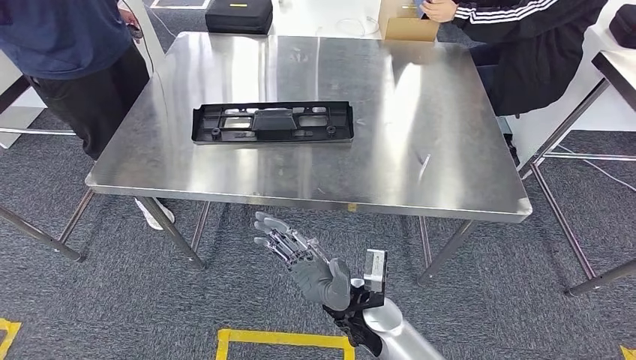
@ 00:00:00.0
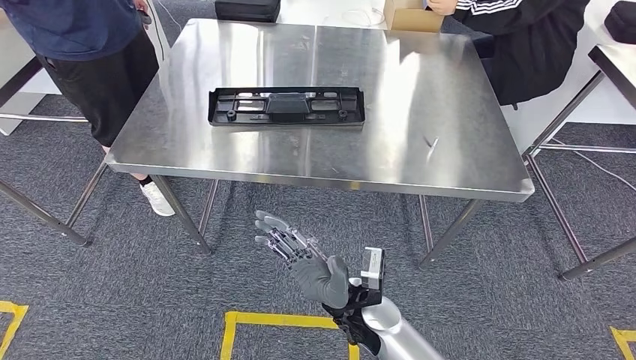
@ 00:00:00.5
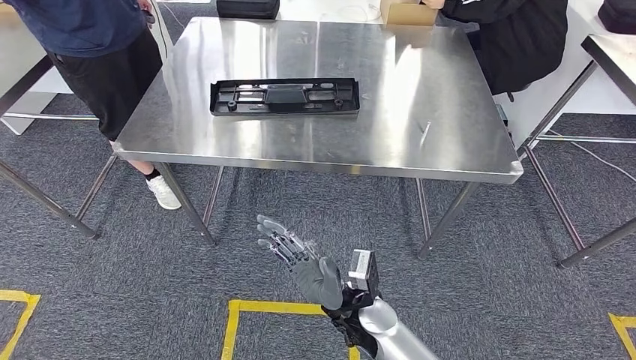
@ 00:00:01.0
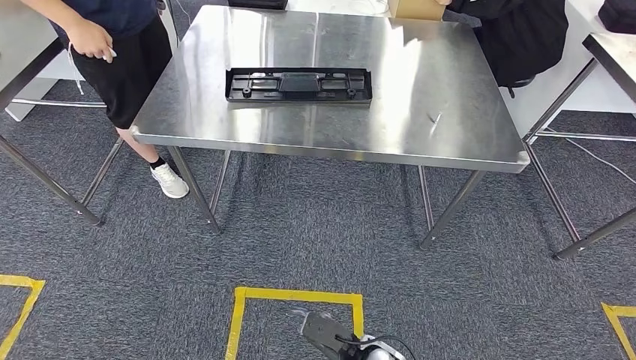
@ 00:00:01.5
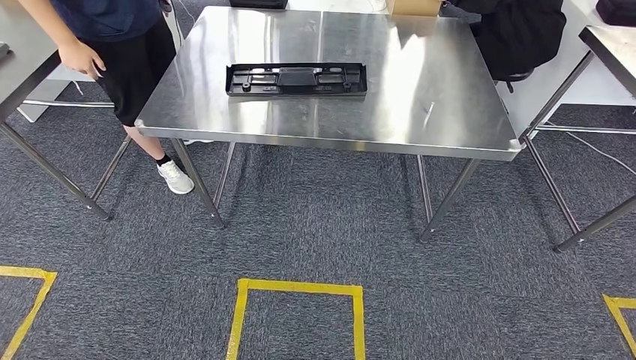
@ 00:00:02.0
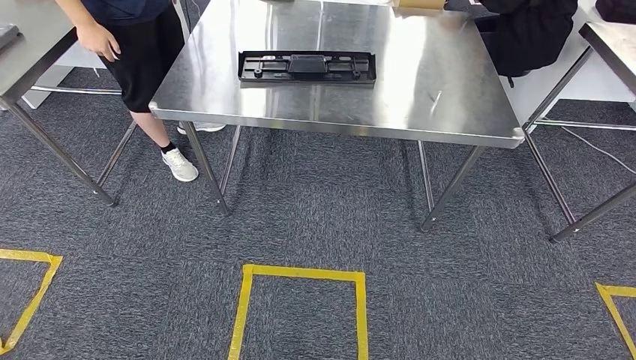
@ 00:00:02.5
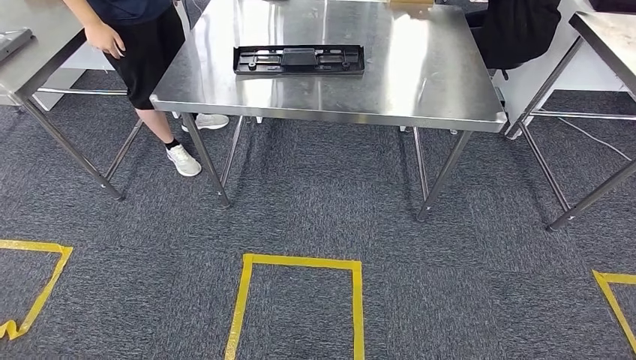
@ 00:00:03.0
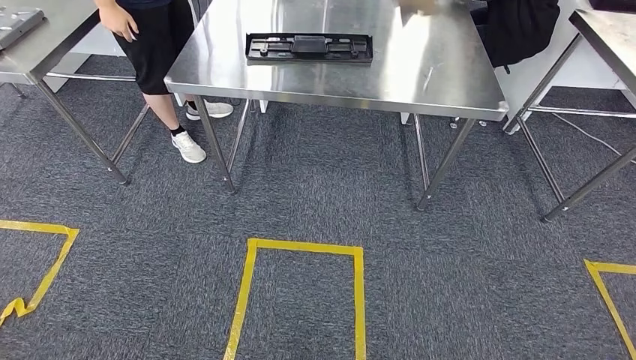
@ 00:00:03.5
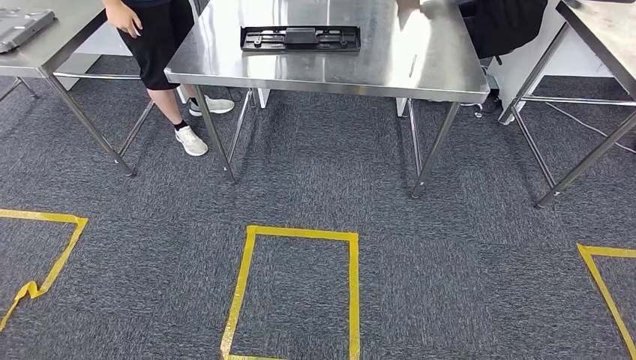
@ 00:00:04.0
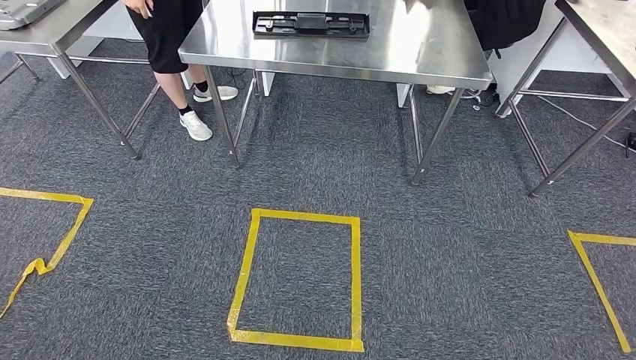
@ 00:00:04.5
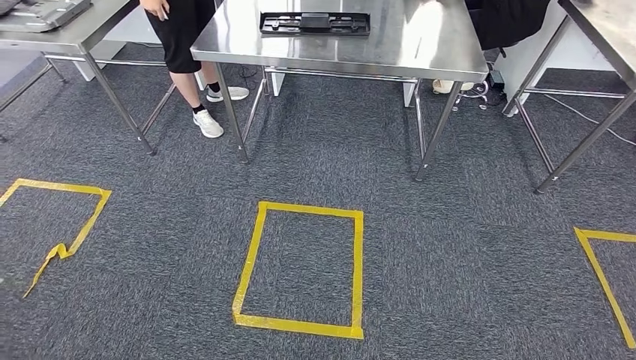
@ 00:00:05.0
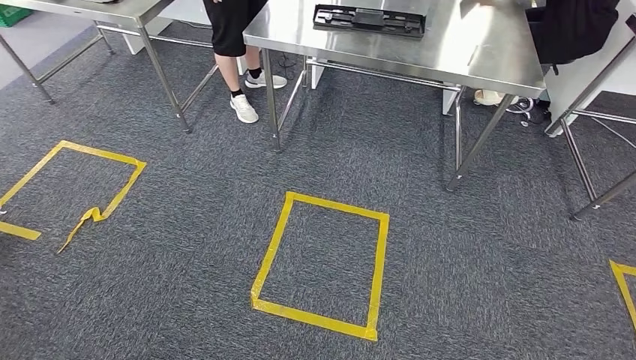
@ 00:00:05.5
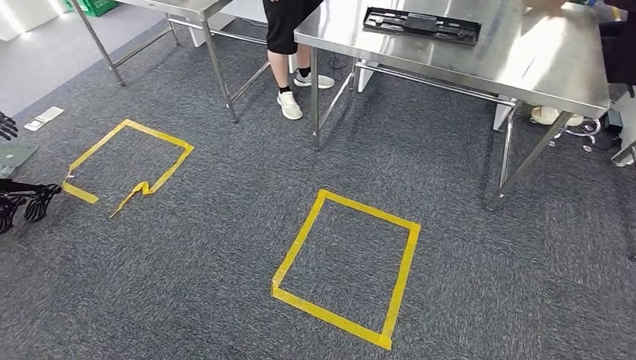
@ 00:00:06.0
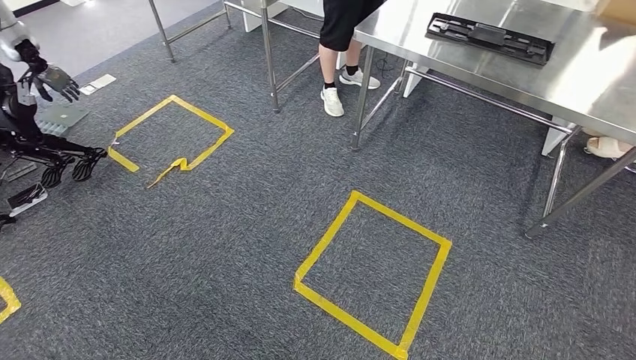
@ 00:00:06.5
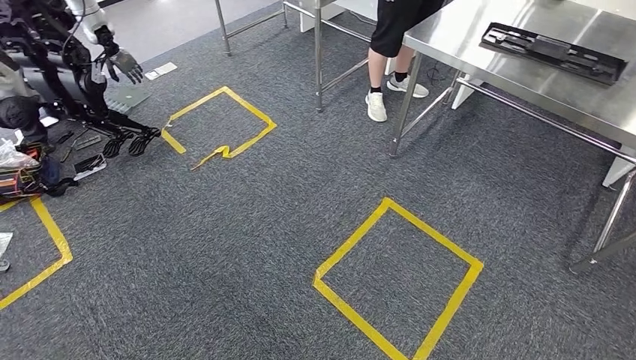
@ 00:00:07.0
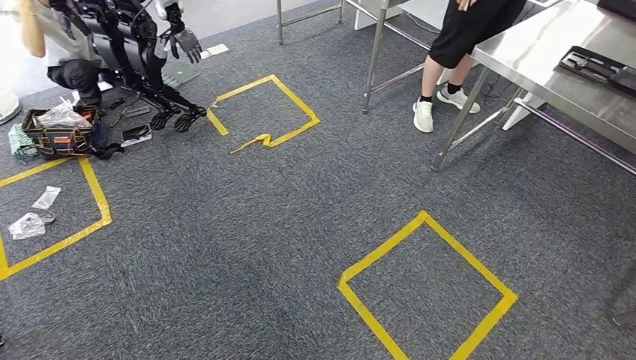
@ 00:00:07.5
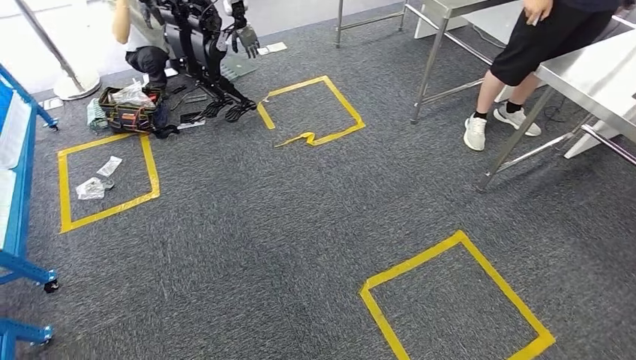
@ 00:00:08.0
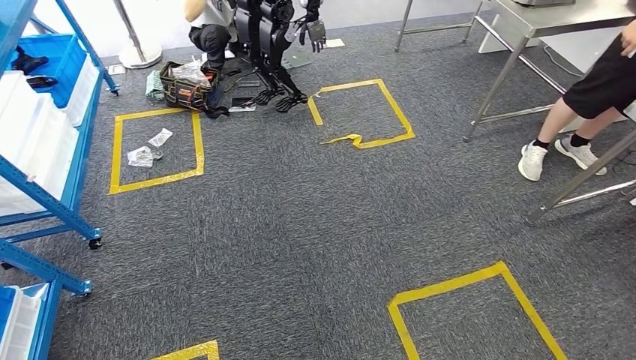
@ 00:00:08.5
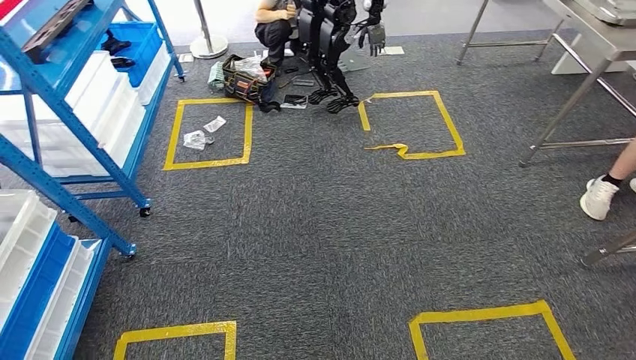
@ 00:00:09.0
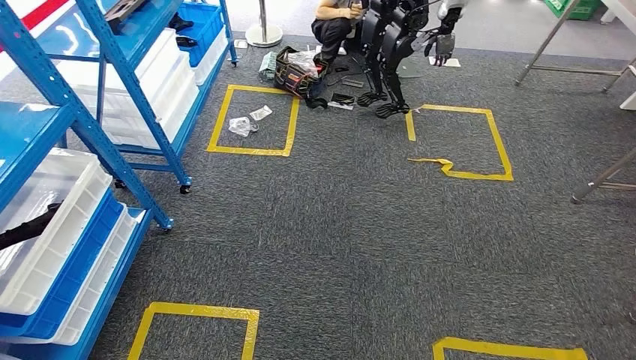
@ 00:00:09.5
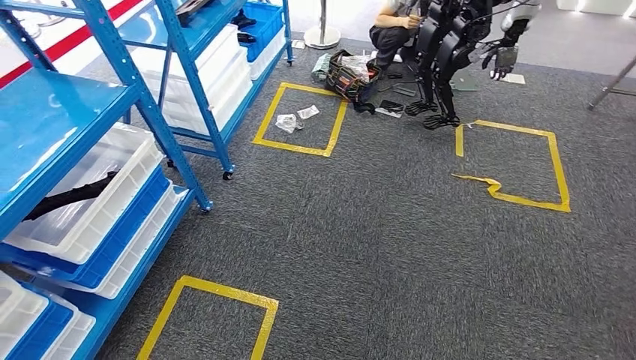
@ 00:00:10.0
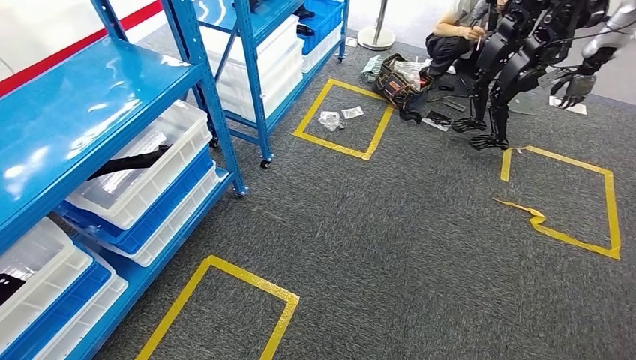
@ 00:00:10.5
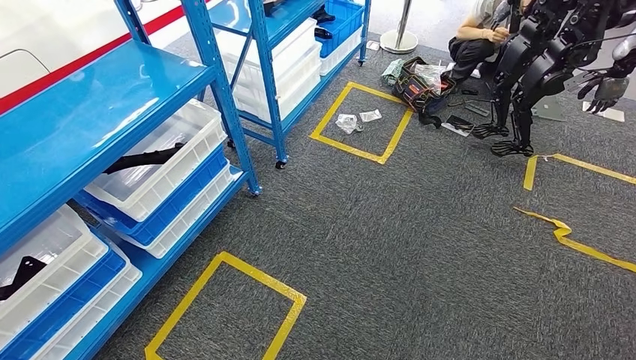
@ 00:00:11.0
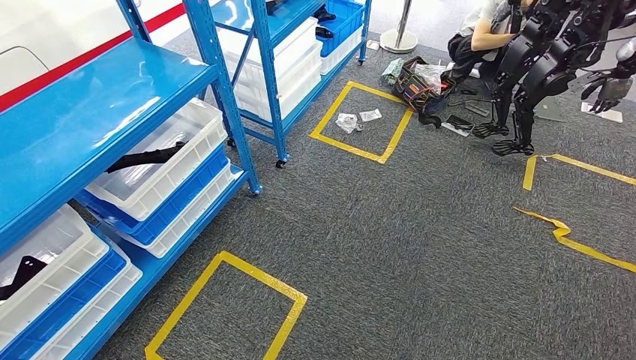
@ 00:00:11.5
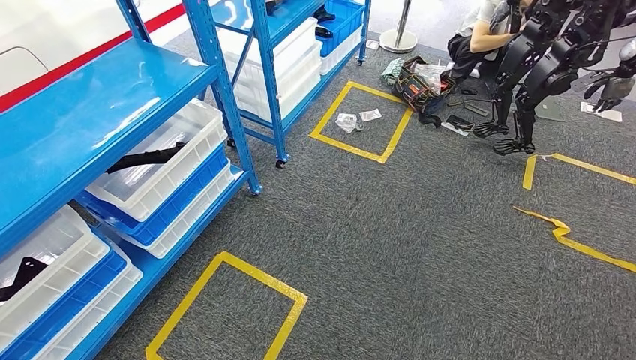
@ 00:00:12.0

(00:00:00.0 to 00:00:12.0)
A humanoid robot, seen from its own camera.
Step, 00:00:00.0 - 00:00:02.5: Insert the large material into the corresponding slot on the workbench.

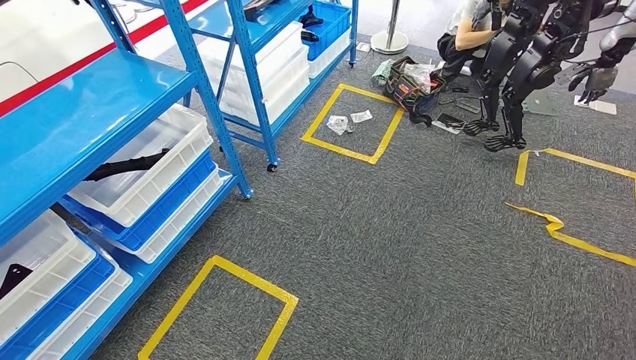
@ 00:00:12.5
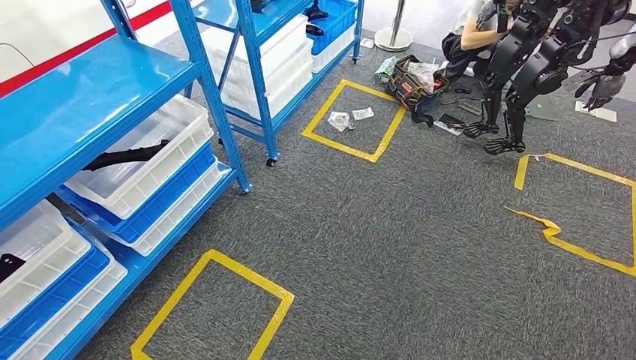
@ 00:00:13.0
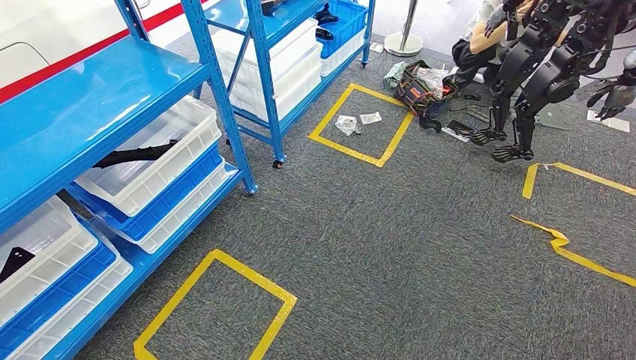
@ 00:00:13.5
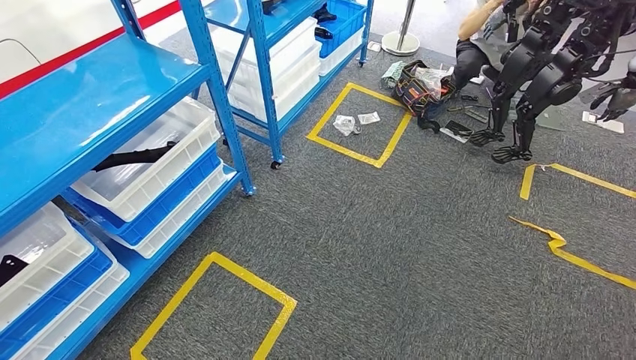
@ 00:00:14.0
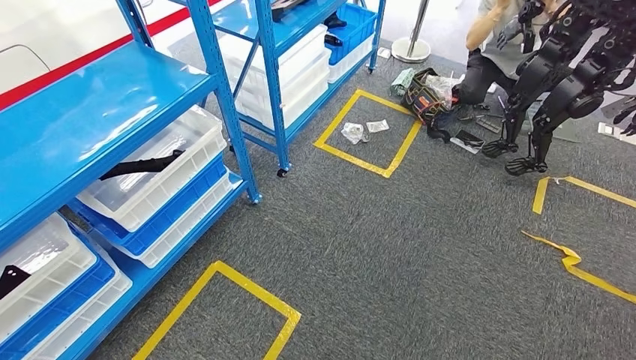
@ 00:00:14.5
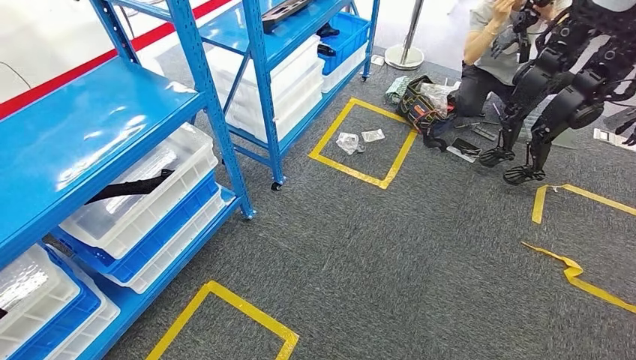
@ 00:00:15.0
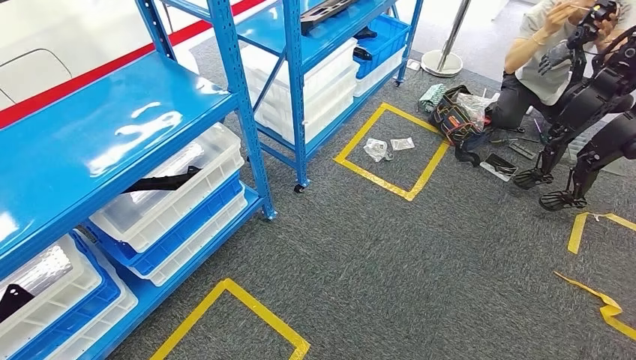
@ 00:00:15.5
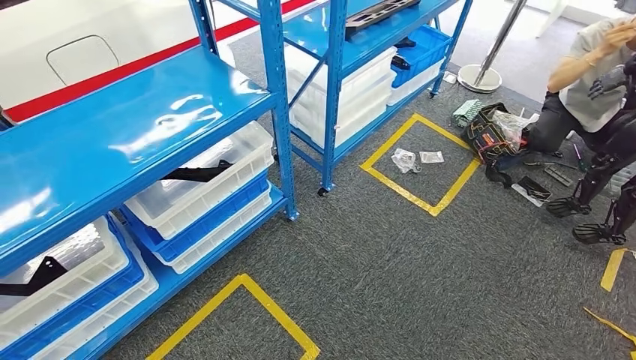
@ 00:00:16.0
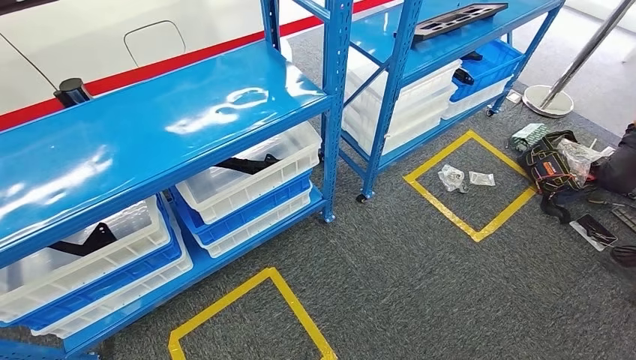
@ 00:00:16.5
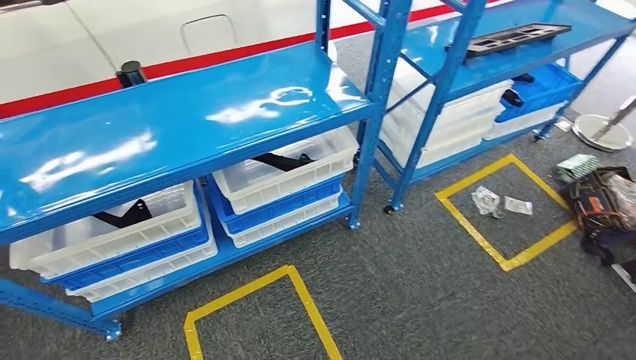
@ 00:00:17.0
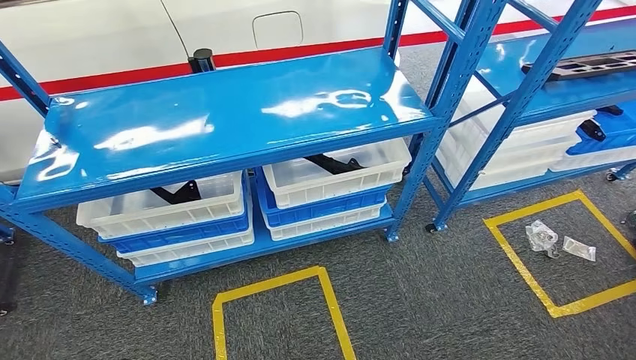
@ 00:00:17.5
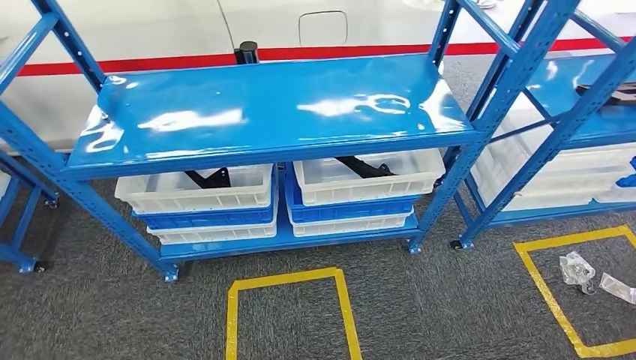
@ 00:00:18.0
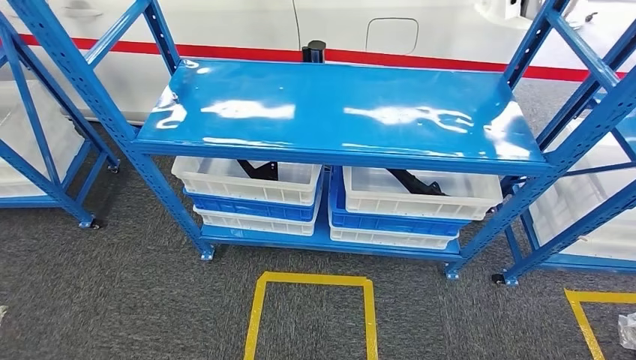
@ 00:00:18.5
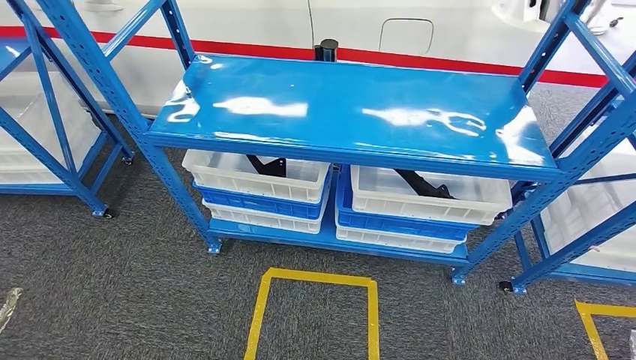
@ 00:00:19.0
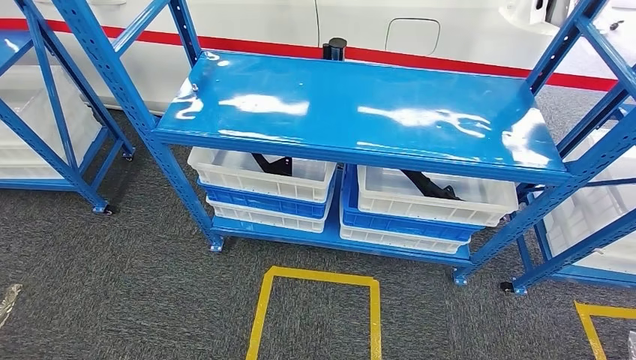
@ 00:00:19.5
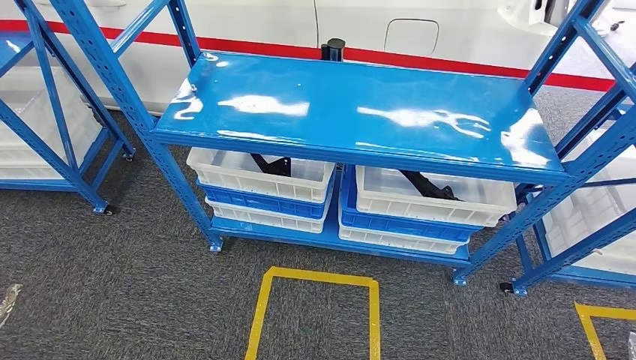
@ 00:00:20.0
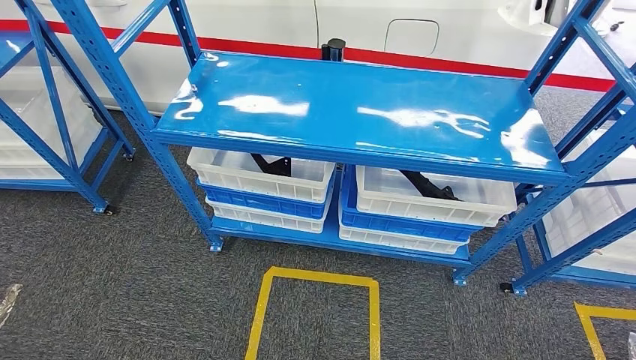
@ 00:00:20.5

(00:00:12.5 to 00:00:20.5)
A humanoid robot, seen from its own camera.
Step, 00:00:12.5 - 00:00:20.5: Move to the initial position of the shelf.
